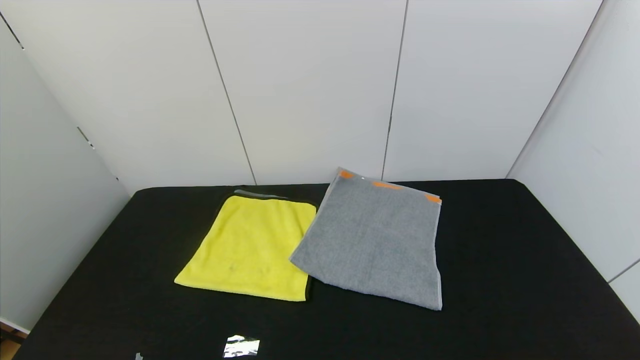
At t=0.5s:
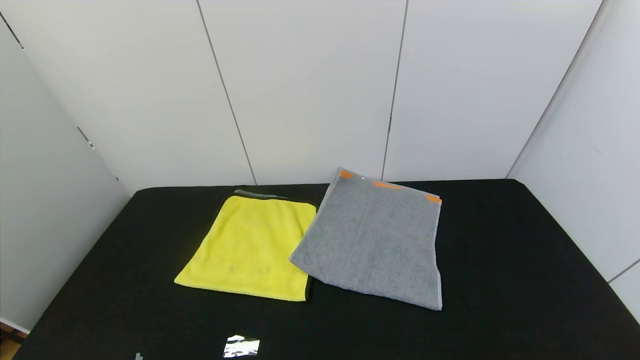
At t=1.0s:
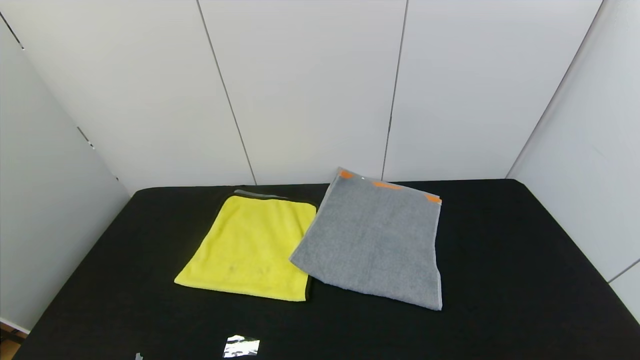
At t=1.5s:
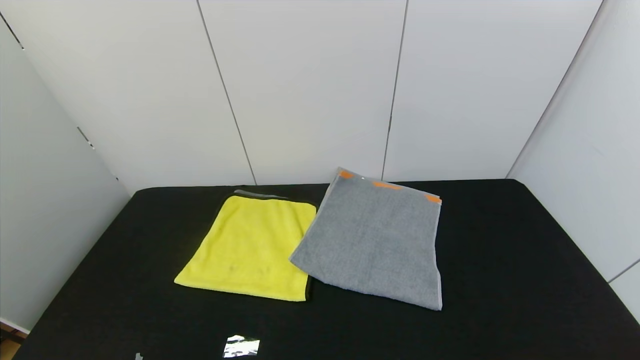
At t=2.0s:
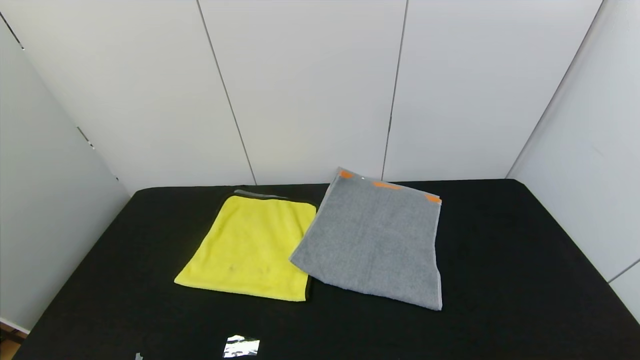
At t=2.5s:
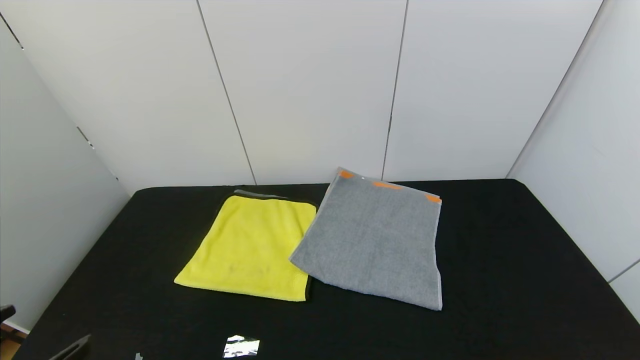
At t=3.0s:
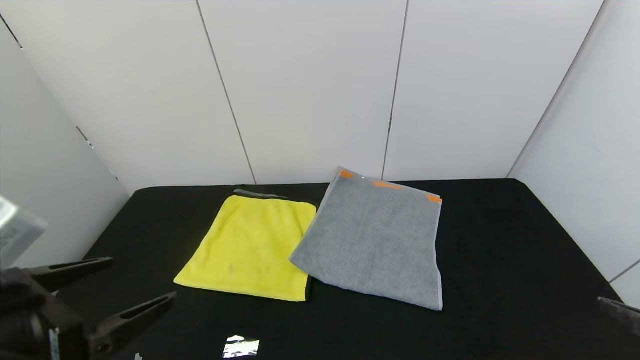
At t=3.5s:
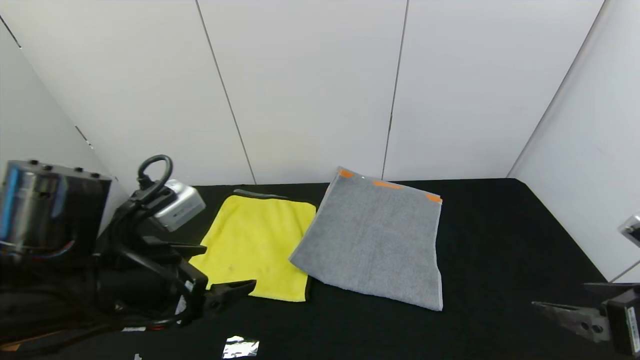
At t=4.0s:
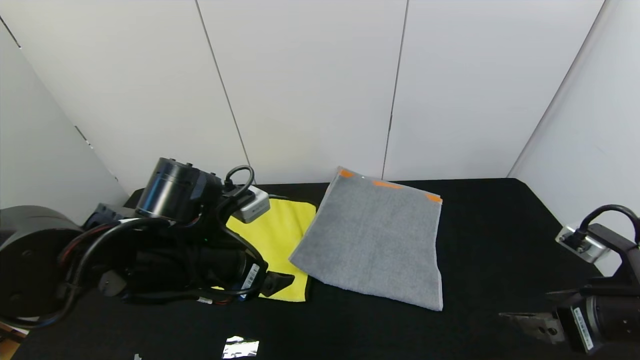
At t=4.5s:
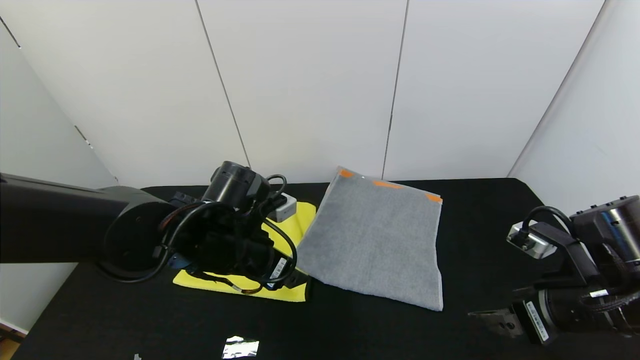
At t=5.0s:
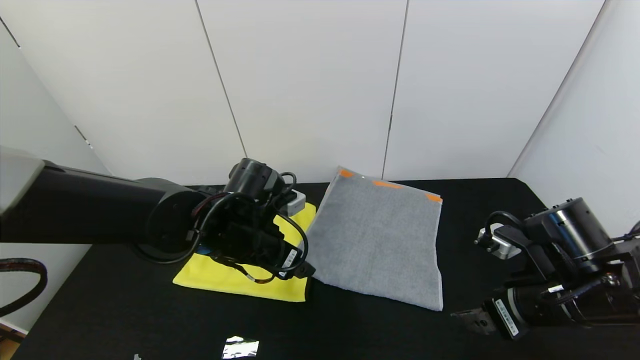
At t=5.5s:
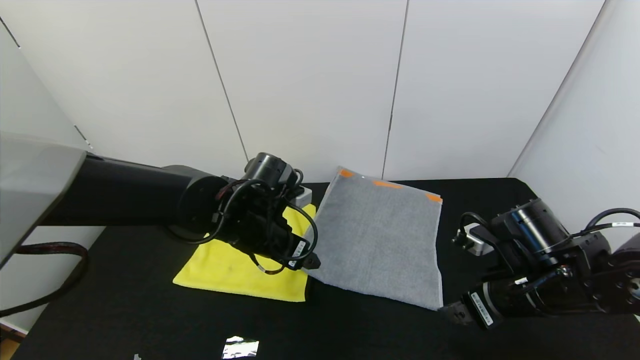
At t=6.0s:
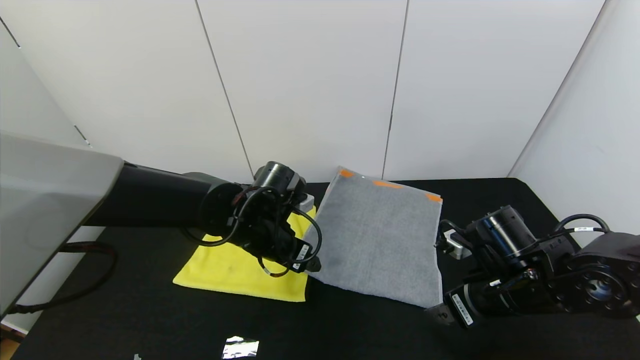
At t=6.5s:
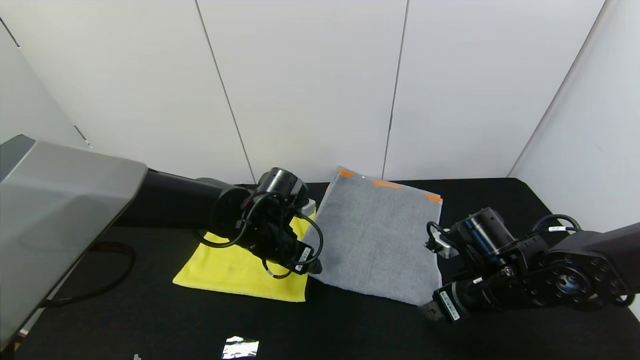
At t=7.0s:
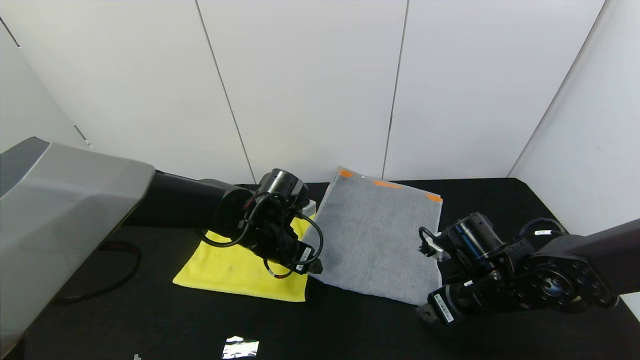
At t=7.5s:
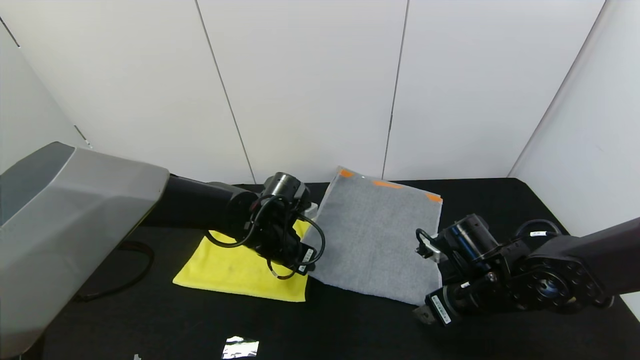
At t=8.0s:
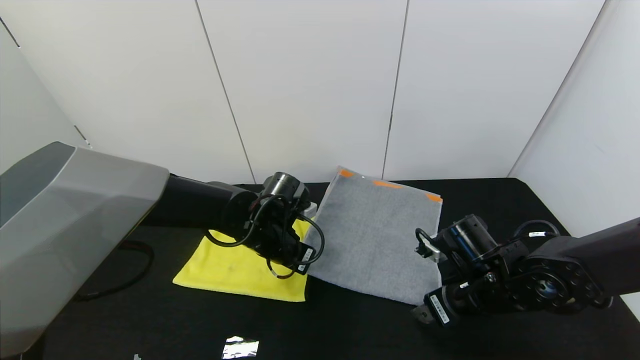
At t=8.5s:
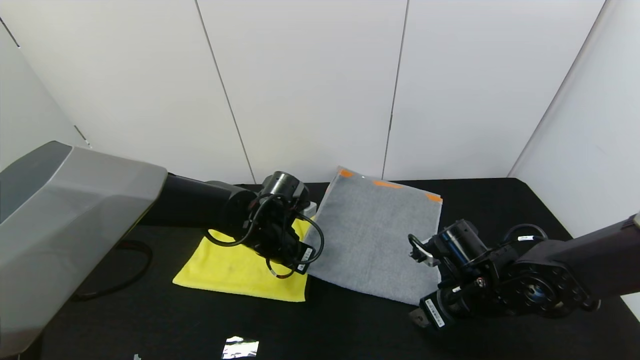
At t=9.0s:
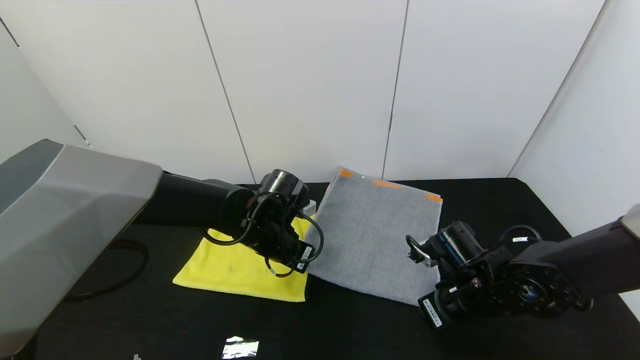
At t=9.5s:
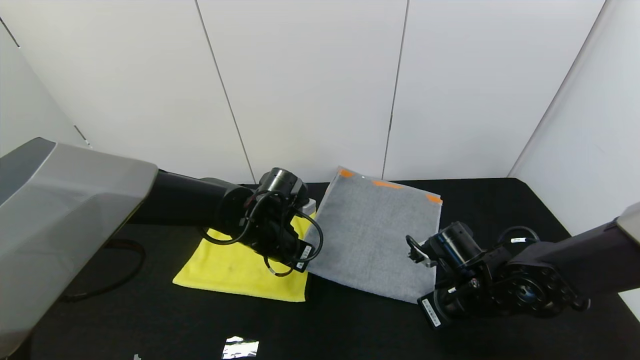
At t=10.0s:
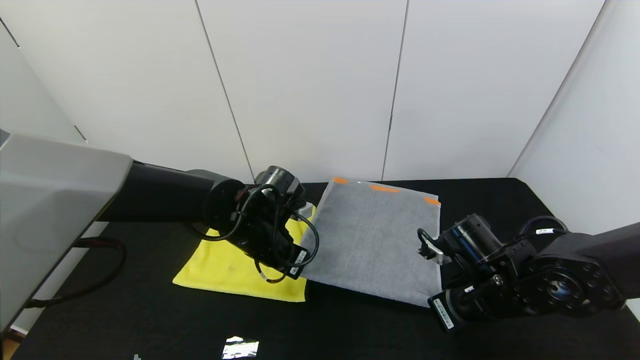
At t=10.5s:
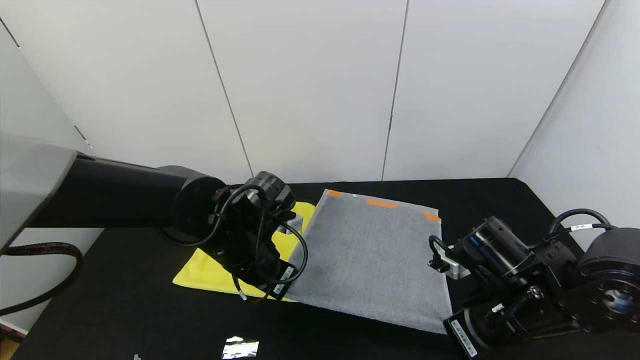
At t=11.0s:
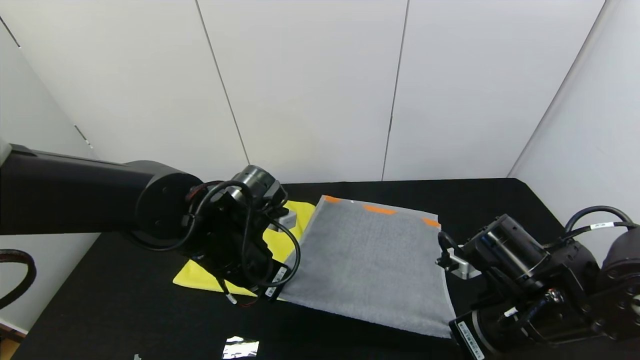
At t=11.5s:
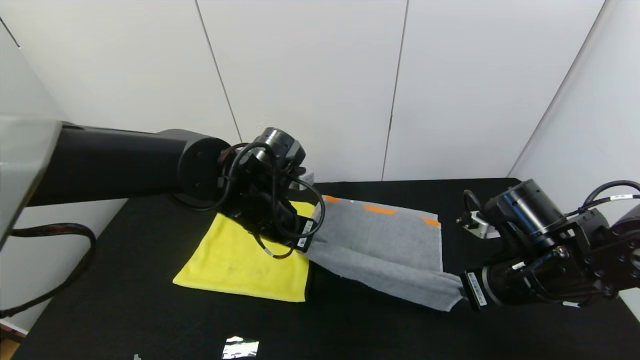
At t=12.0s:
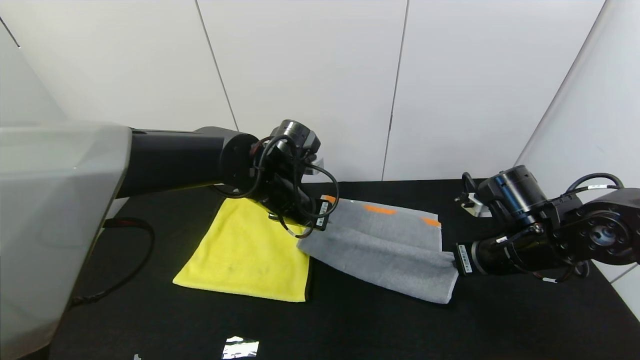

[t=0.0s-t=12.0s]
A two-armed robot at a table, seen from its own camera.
Task of the whole recording: Use the gripper to fold the yellow towel and grey towel in half twice,then put the yellow towel on the grey towel.
t=2.0s to t=4.0s: The right gripper is displaced forward by some 20 cm. The left gripper moves forward and to the right, approximately 30 cm.
t=4.0s to t=6.0s: The right gripper moves to the left, forward and downward, some 15 cm; the left gripper shifts about 10 cm forward and to the right.
t=6.0s to t=8.0s: The left gripper closes its fingers.
t=8.0s to t=10.0s: The right gripper closes up.
t=10.0s to t=12.0s: The two grippers go about 5 cm upward.

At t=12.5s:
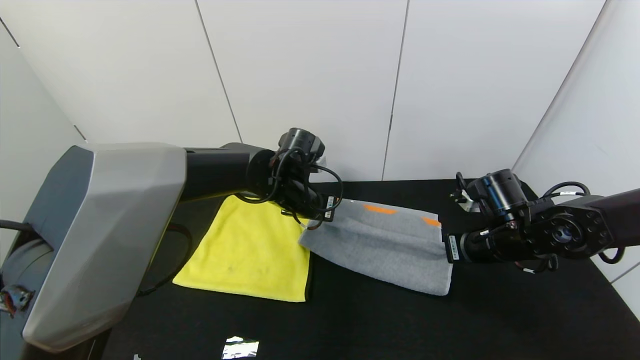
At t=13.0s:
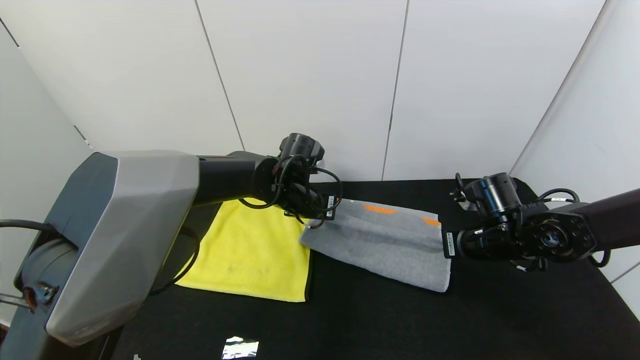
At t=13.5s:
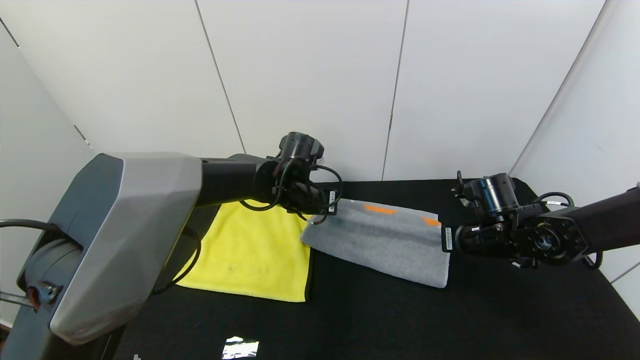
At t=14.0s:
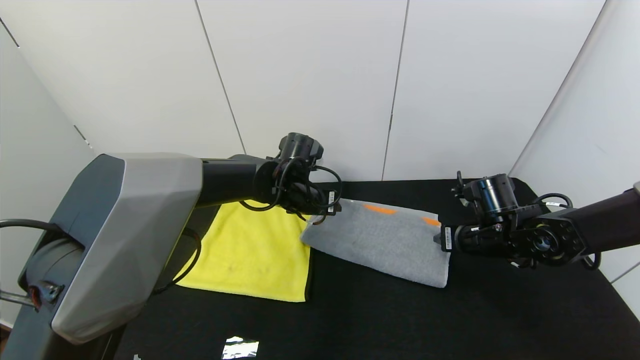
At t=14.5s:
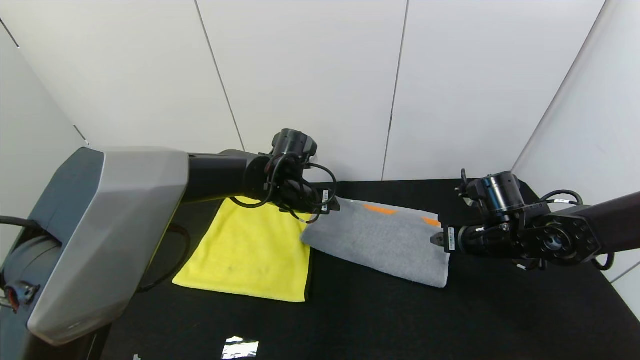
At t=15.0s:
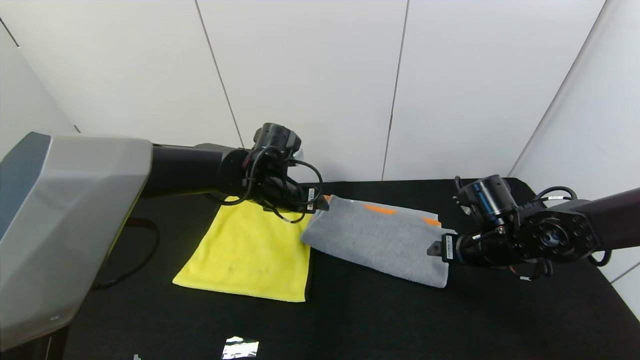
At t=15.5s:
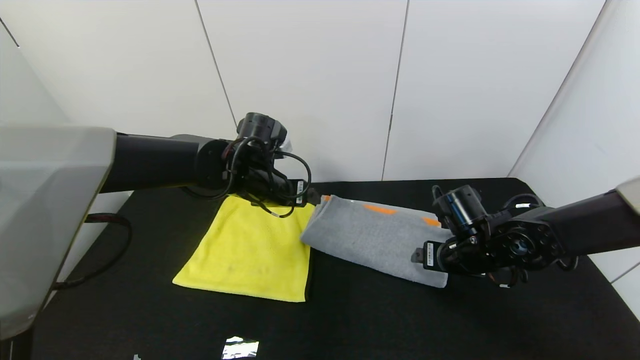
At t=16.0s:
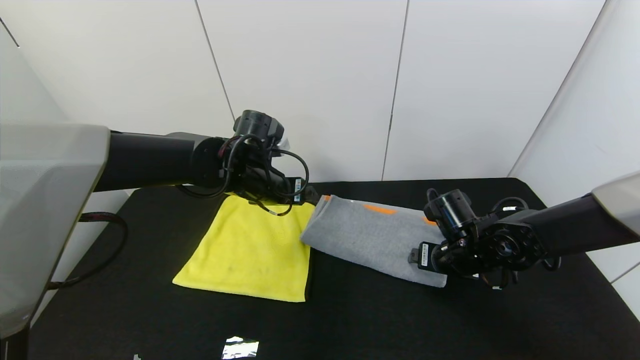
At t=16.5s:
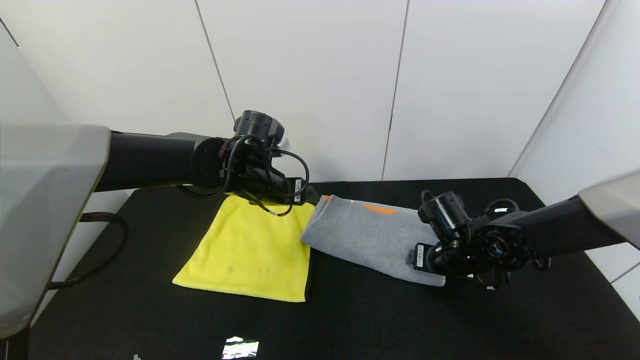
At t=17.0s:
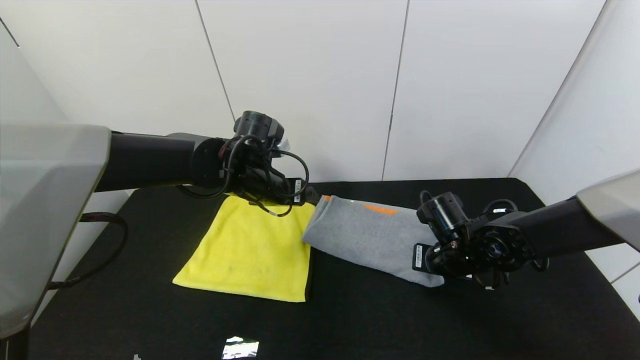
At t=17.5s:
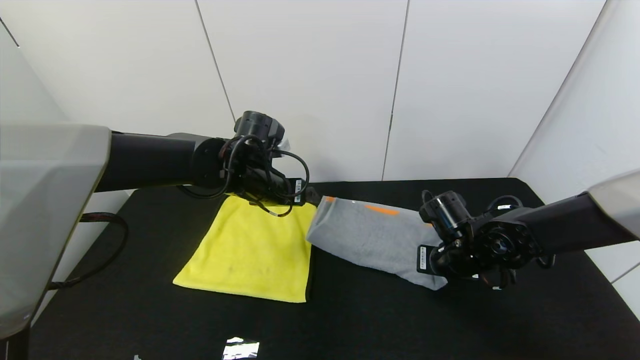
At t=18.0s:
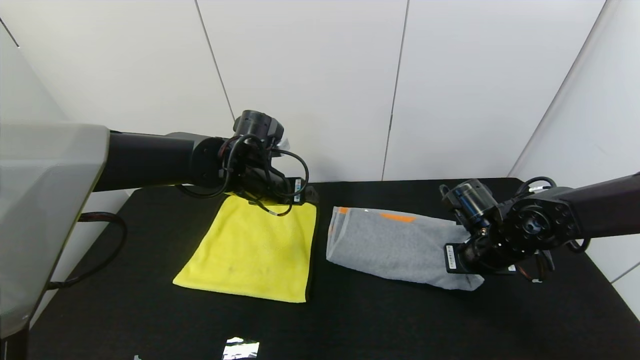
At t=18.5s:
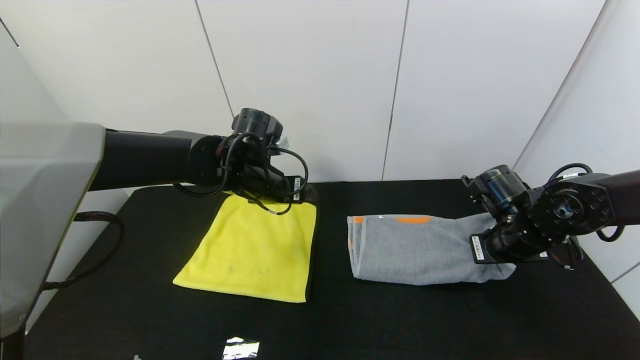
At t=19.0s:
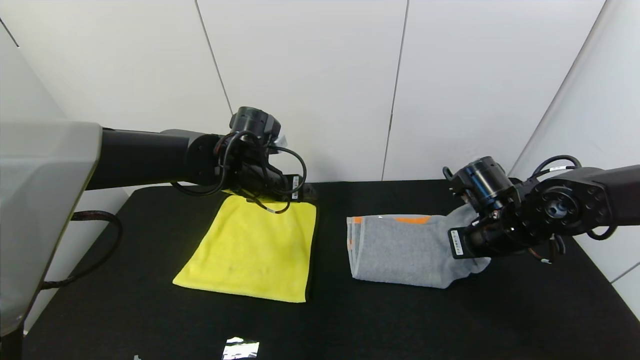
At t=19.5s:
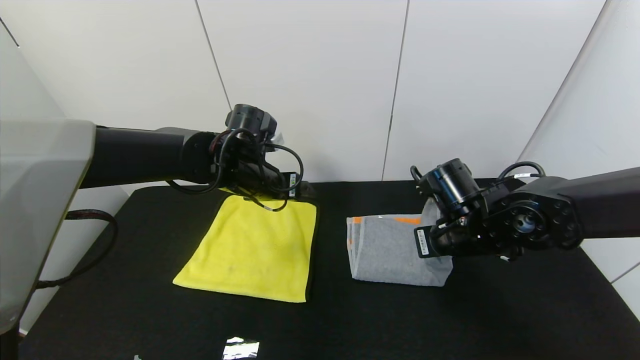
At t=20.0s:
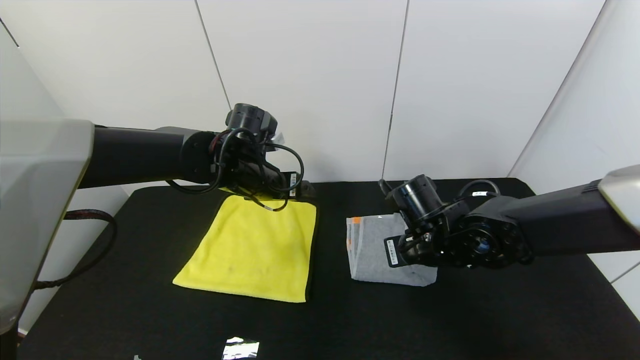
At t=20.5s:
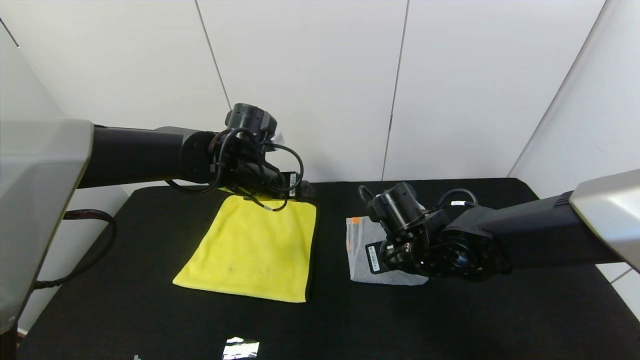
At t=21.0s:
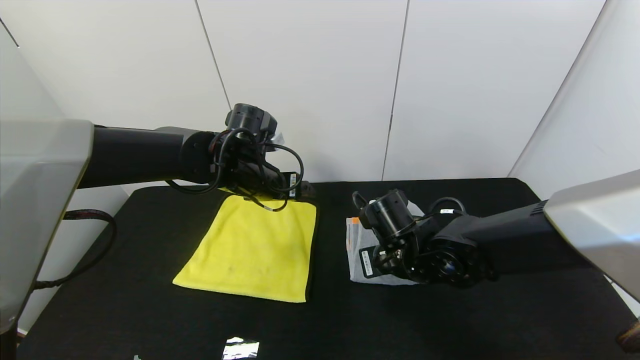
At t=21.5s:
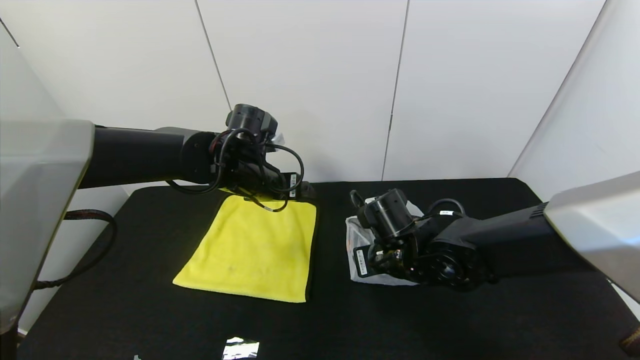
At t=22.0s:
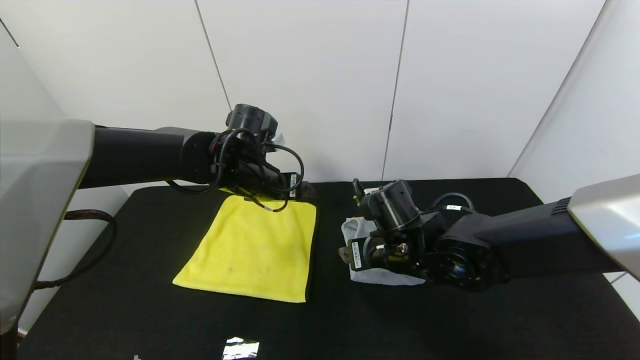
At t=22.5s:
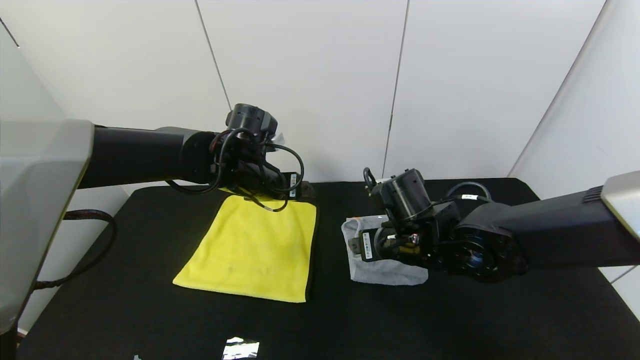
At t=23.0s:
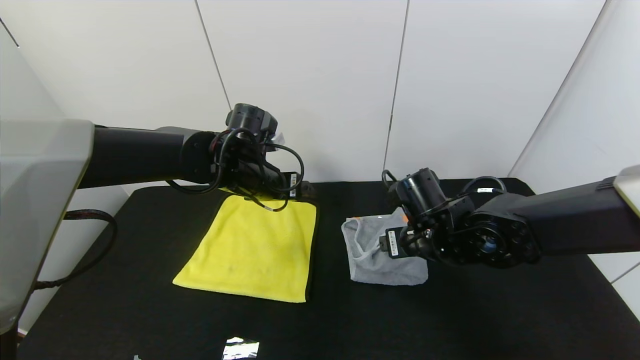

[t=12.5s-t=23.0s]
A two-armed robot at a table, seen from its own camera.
Task of the whole recording: Use the gripper to fold the yellow towel and grey towel in half twice,then put the yellow towel on the grey towel.
Step, t=12.5s to t=14.5s: Fold the gray towel upwards with the left gripper.
t=12.5s to t=14.5s: The right gripper opens up; the left gripper opens up.
t=14.5s to t=16.5s: The right gripper goes approximately 5 cm to the left. Meanwhile the left gripper moves about 5 cm.
t=16.5s to t=19.0s: The right gripper moves upward, some 5 cm, and closes.
t=19.0s to t=21.0s: The right gripper travels to the left by approximately 15 cm.
t=21.0s to t=23.0s: The right gripper shifts by roughly 5 cm, and opens its fingers.
